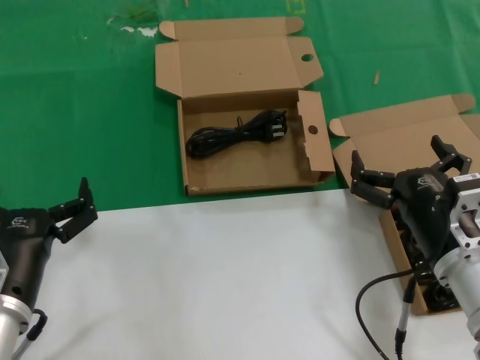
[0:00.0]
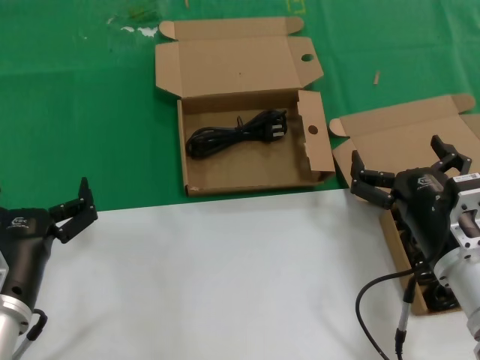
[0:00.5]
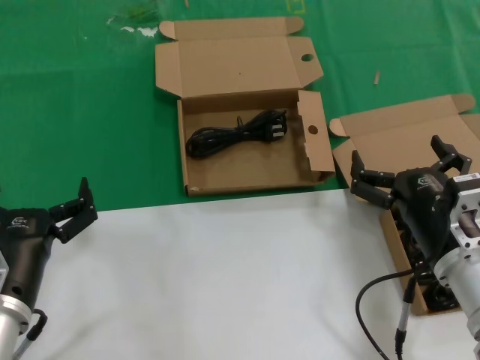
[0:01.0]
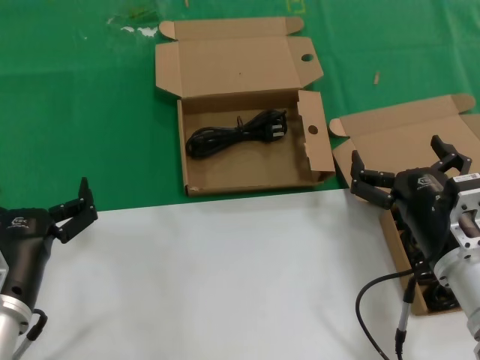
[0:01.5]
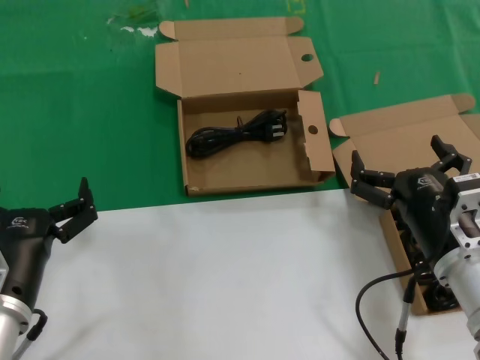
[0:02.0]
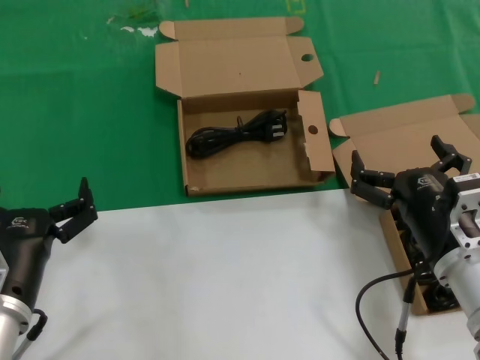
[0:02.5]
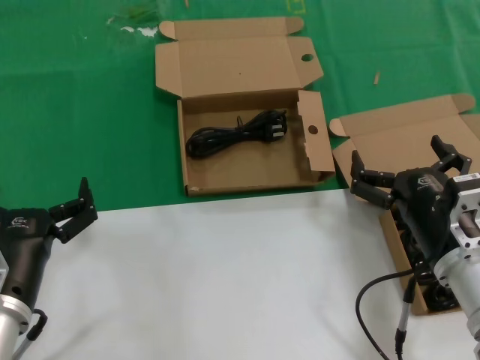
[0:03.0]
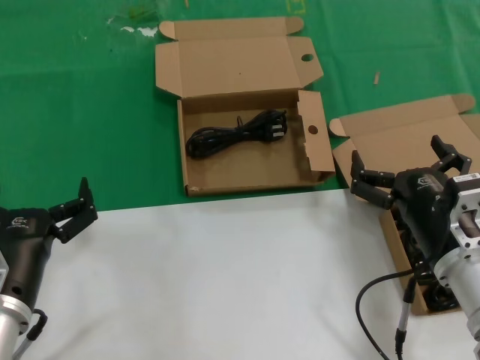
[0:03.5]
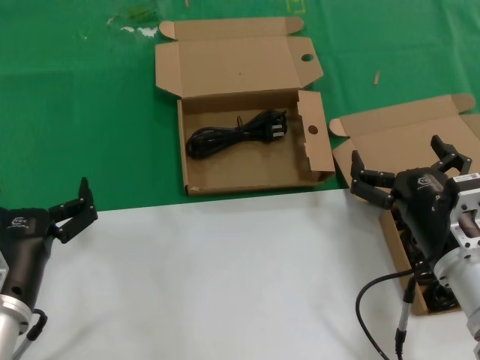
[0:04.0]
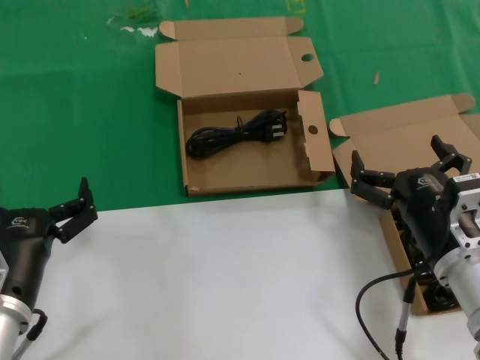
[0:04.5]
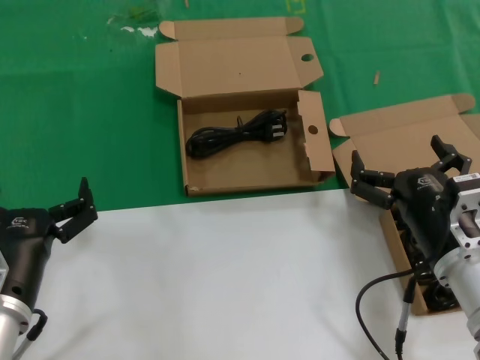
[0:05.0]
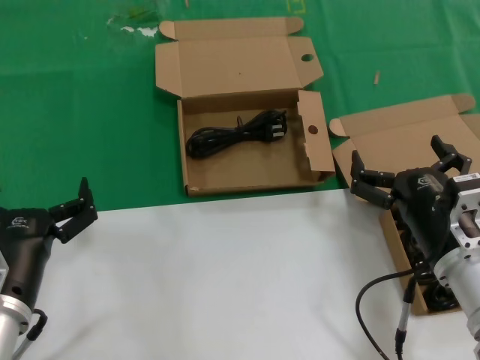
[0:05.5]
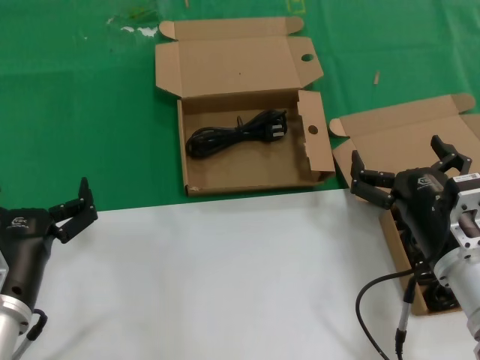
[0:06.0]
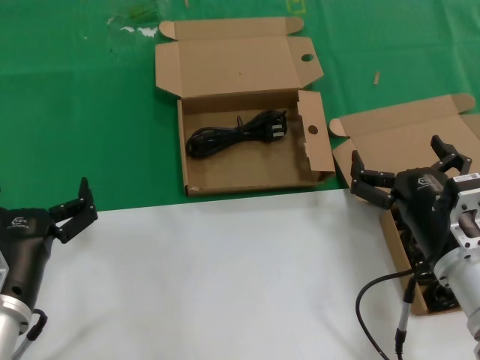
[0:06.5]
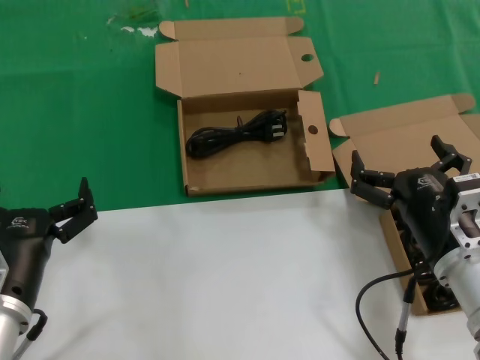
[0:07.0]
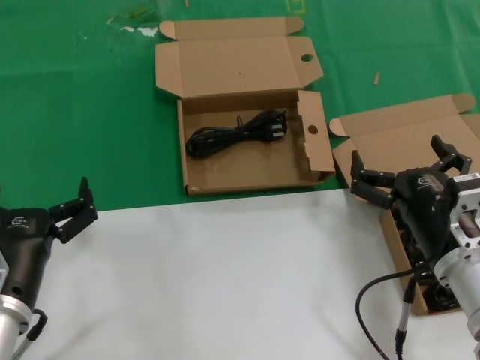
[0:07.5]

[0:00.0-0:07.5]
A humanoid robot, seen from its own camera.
Task of the whole recording: take the parts from the box containing them and put them into an empty box.
0:00.0 to 0:07.5: The two hands keep their place.
